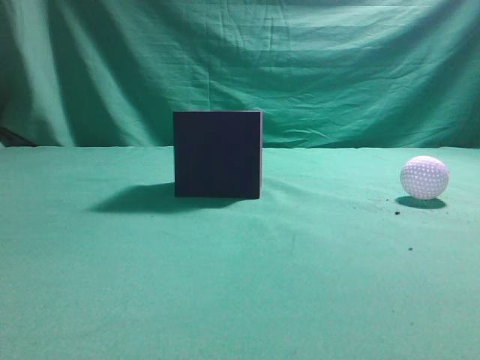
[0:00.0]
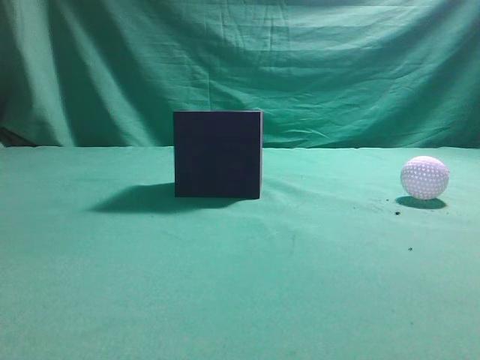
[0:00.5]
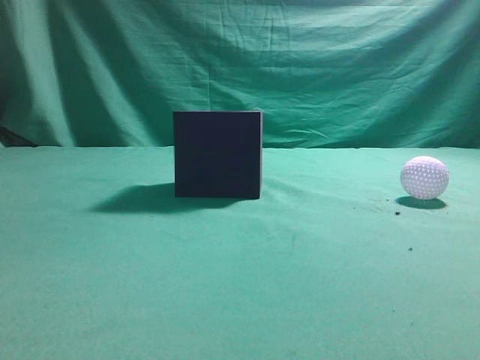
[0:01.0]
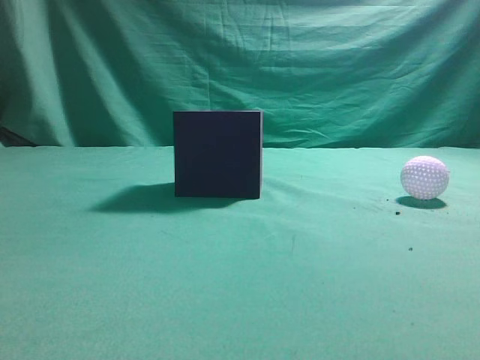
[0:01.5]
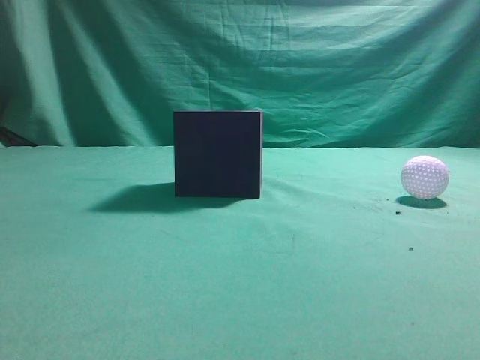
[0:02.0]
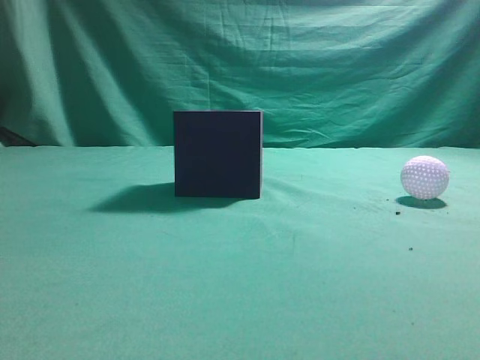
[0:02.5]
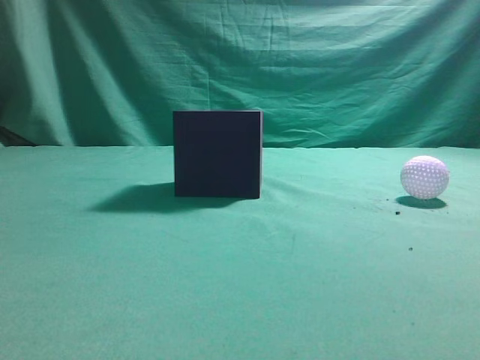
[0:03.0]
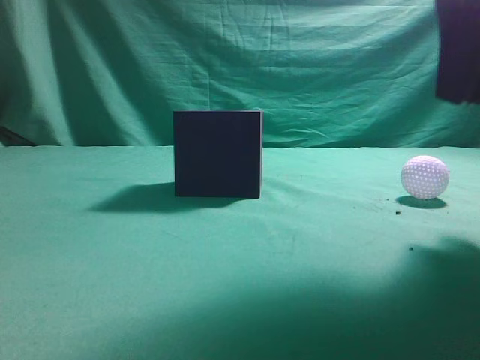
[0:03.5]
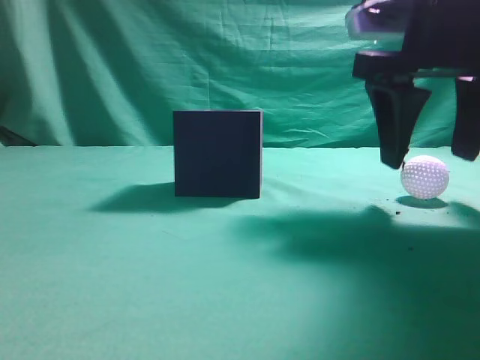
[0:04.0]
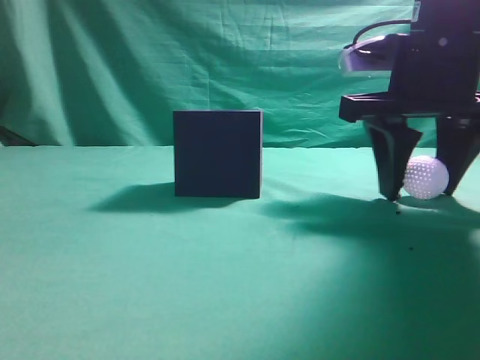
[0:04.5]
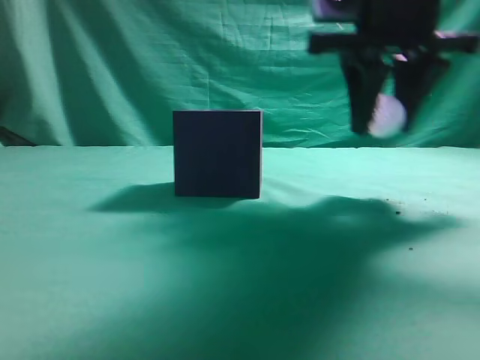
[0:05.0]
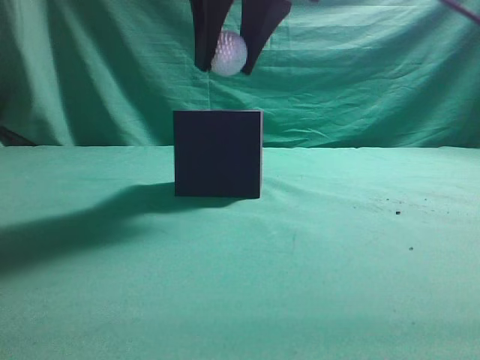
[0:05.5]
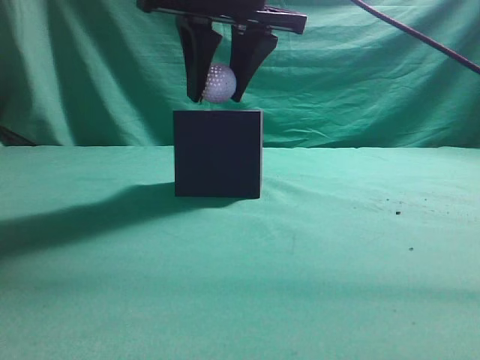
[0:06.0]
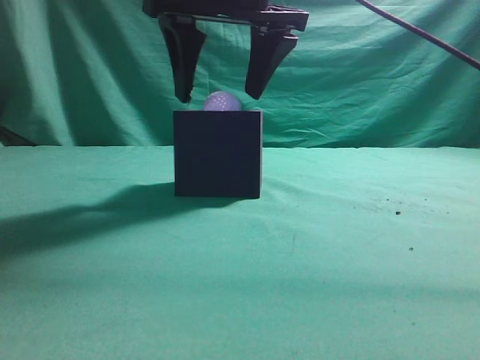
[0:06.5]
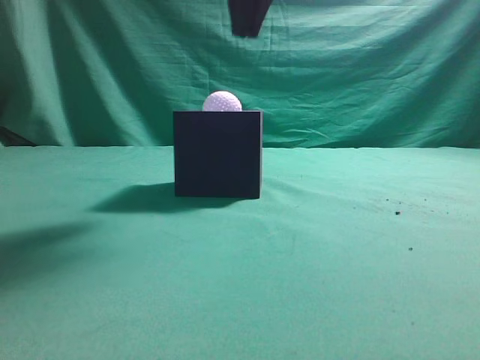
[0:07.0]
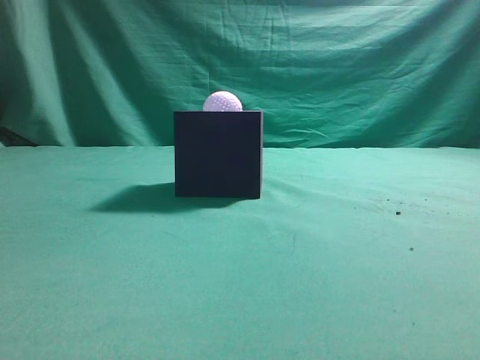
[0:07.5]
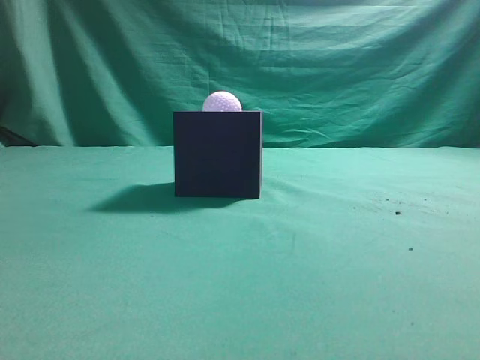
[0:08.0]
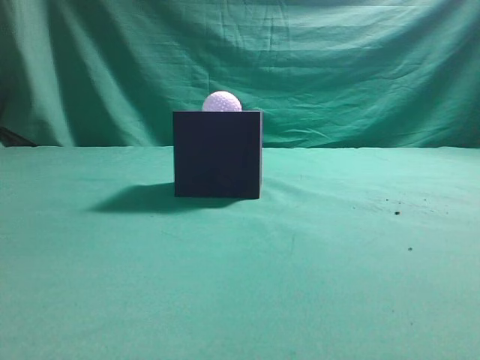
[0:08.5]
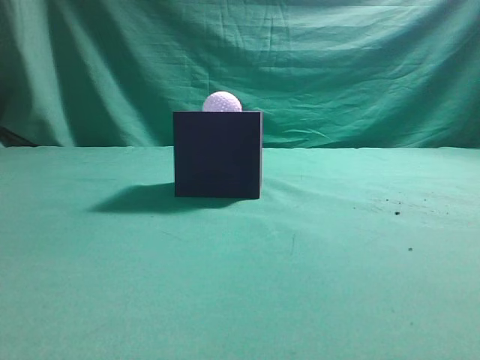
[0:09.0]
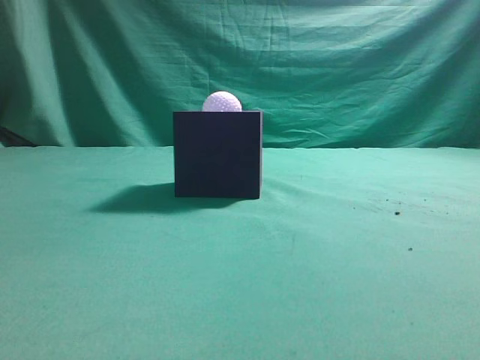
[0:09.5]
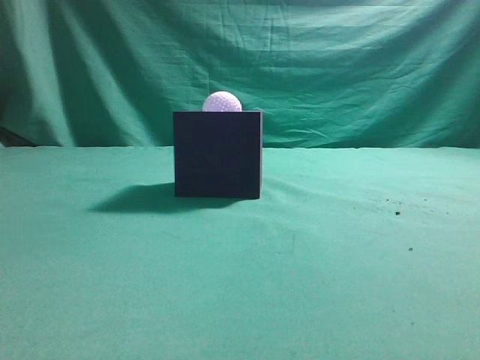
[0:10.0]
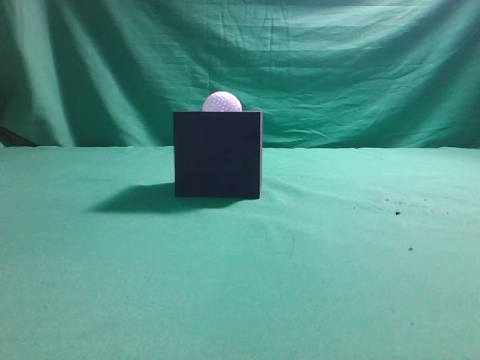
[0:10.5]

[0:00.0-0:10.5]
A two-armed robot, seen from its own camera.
Task of the whole recording: Pick up the ball and place it in the circular groove above the cube.
Step, 0:00.0 to 0:04.5: Grasp the sphere on the table.
Step, 0:05.0 to 0:06.5: Place the sphere into the sphere-shaped recess.
0:02.0 to 0:04.0: The right gripper moves forward and to the left, roughly 30 cm, and opens its fingers.
0:04.0 to 0:06.5: The right gripper travels to the left by approximately 15 cm, and closes, then opens again.
0:06.5 to 0:08.5: The right gripper goes approximately 40 cm backward and to the right, and closes its fingers.
